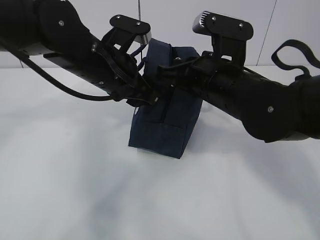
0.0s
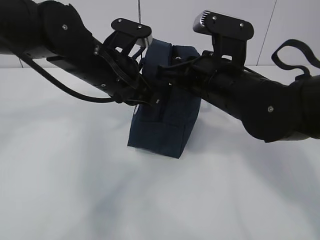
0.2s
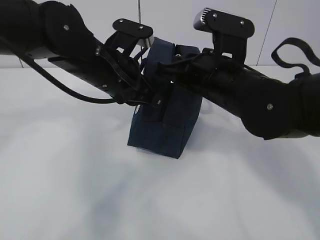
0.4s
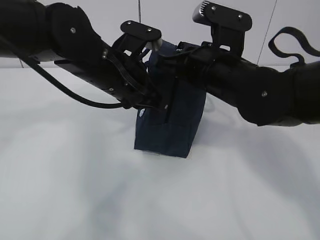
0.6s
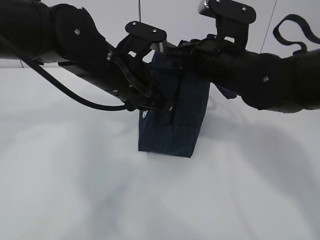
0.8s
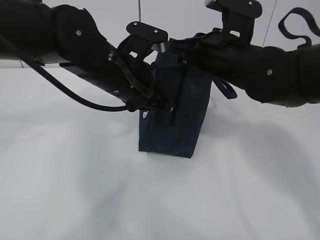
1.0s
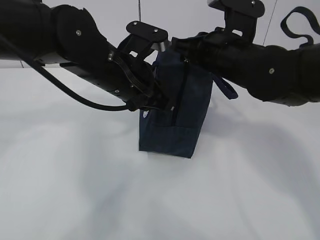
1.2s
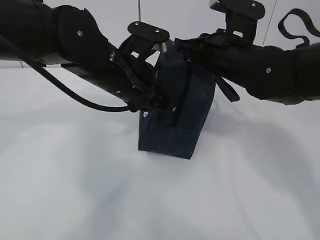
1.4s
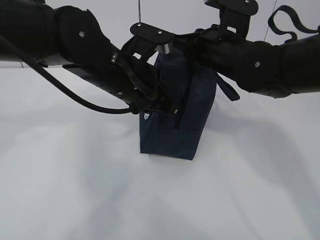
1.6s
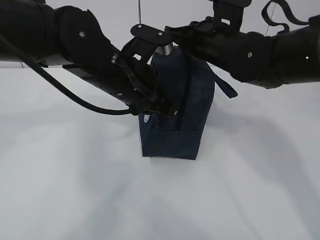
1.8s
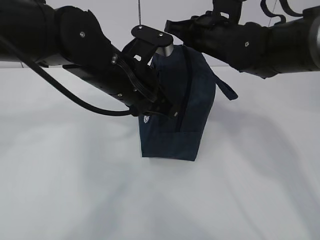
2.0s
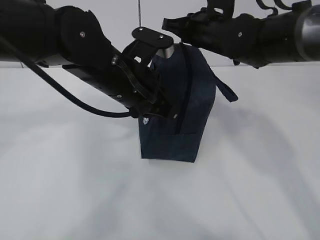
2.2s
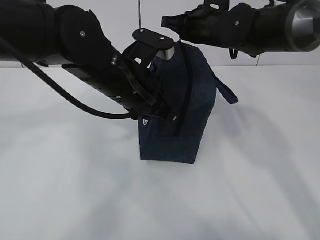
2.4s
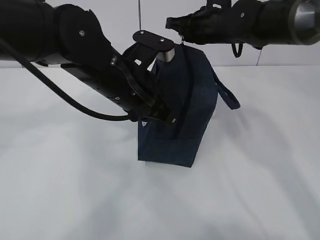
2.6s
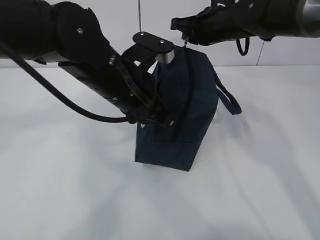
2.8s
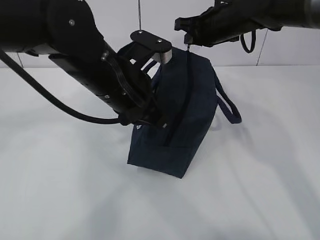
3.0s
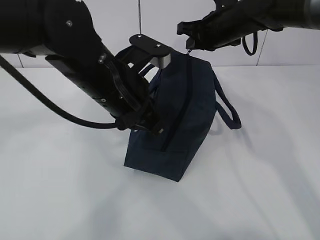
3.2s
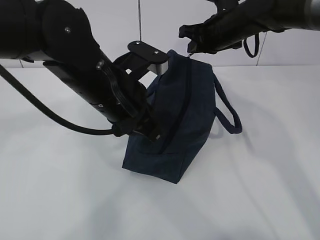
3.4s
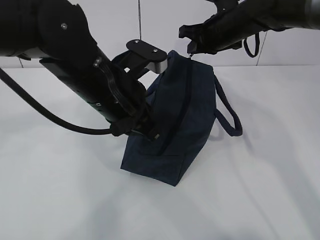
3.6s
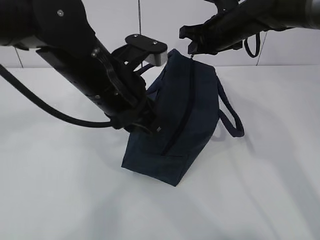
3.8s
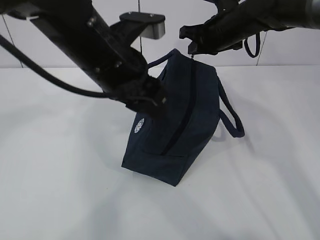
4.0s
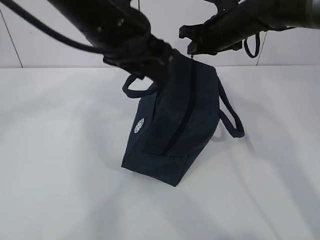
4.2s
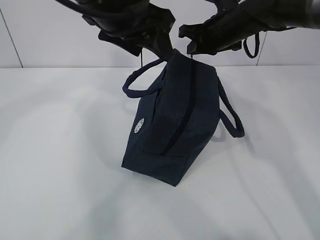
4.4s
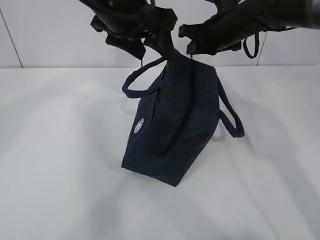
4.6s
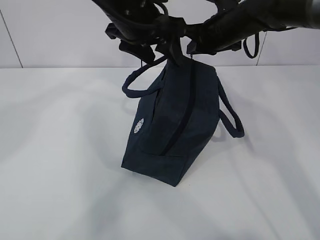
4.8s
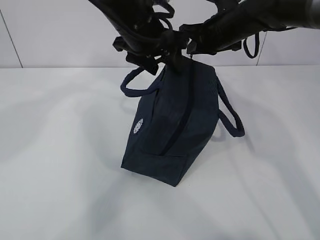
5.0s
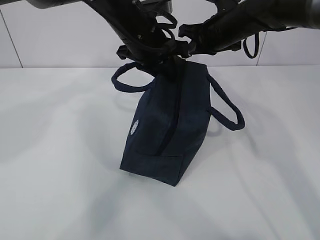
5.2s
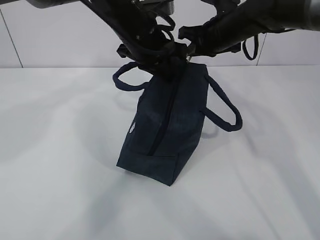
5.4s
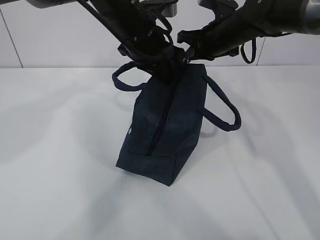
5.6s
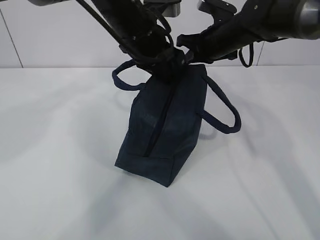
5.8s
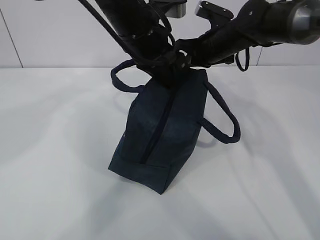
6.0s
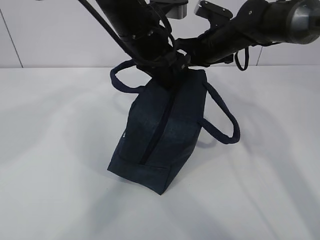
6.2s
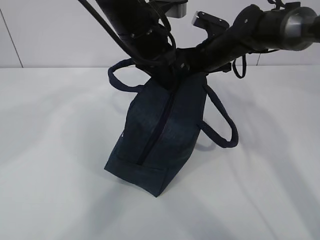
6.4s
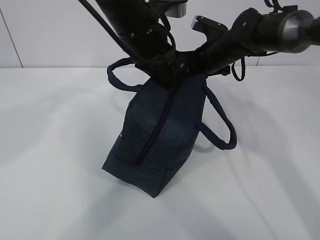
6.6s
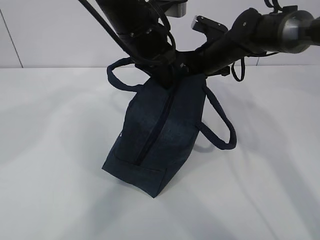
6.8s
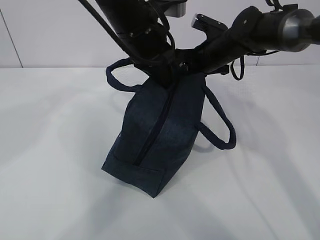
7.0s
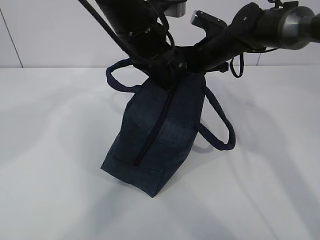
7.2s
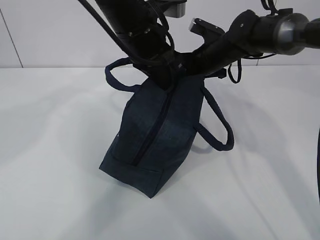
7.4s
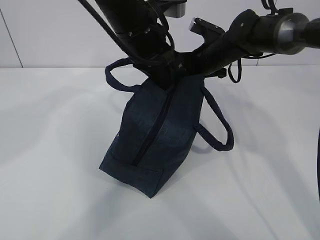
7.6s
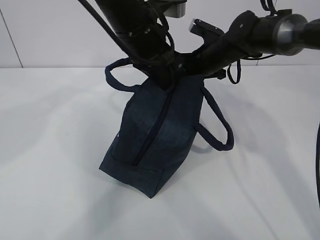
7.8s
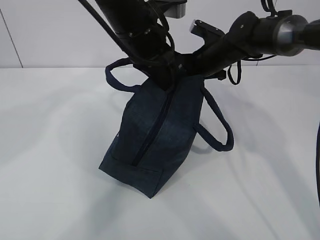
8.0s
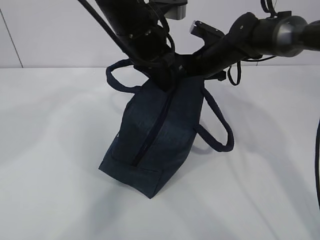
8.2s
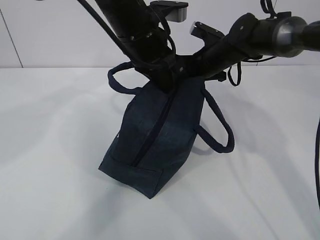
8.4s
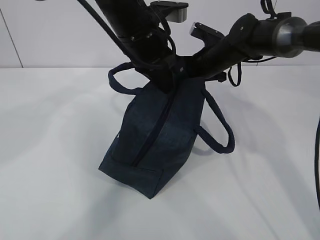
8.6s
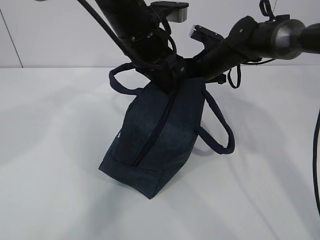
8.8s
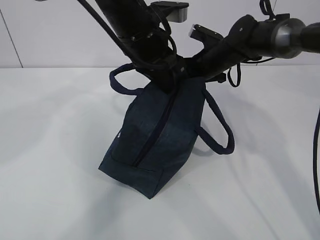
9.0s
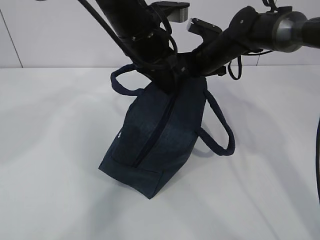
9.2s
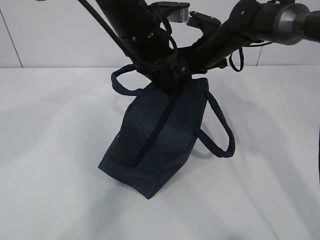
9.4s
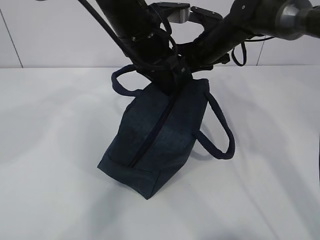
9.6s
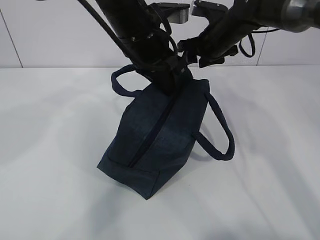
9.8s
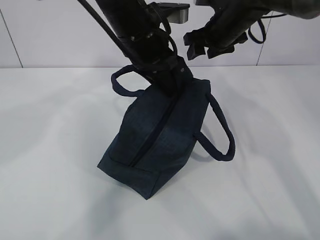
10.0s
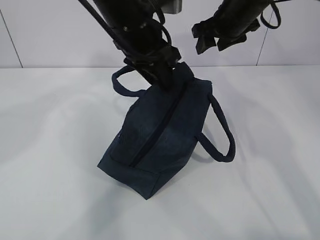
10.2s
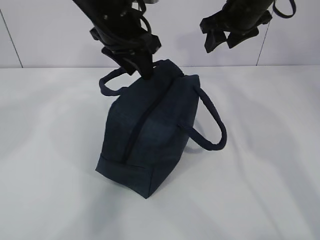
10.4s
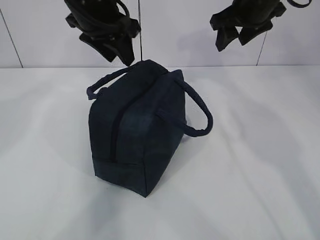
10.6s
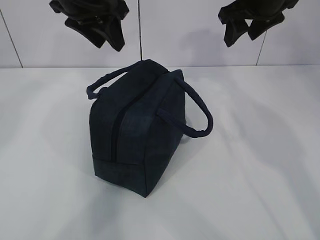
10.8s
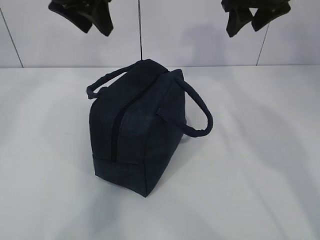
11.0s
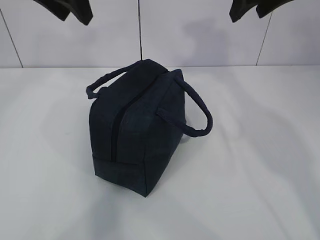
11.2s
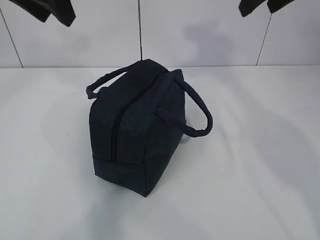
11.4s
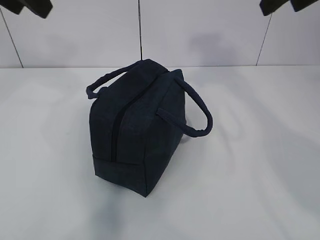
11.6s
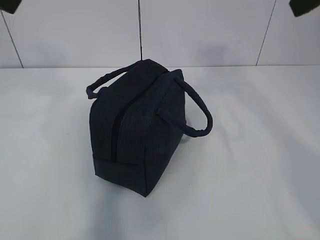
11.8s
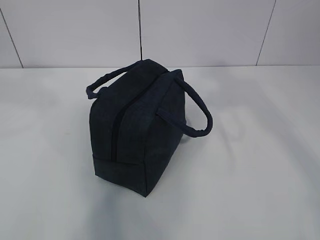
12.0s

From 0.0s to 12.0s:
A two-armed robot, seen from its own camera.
From 0.0s to 1.6s: The right gripper moves forward, some 5 cm, while the left gripper closes its fingers.
From 1.6s to 3.0s: The right gripper is displaced forward by about 10 cm.
From 3.0s to 4.4s: The left gripper is displaced upward by approximately 10 cm, and opens up.
From 4.4s to 6.0s: The left gripper travels downward and forward by approximately 10 cm, and closes.
From 6.0s to 9.0s: The grippers make only small movements.
From 9.0s to 10.4s: The left gripper opens. Meanwhile the right gripper heads upward, covering approximately 15 cm, and opens.
From 10.4s to 12.0s: The right gripper heads backward and upward, covering roughly 30 cm; the left gripper moves backward, to the left and upward, approximately 25 cm.

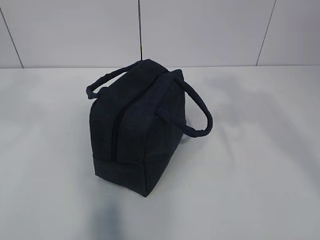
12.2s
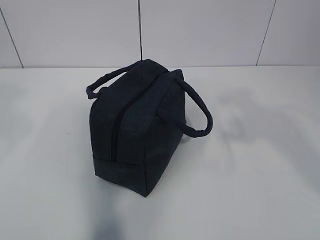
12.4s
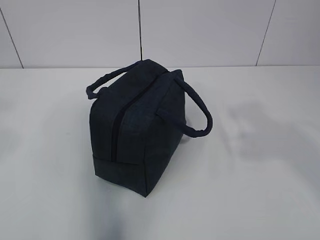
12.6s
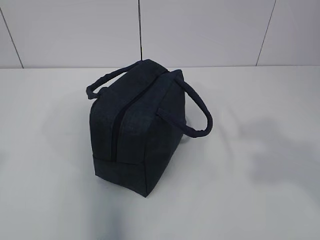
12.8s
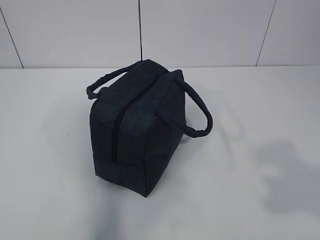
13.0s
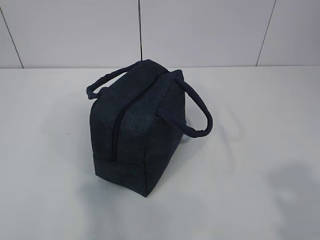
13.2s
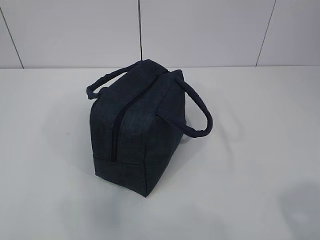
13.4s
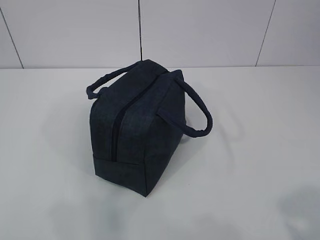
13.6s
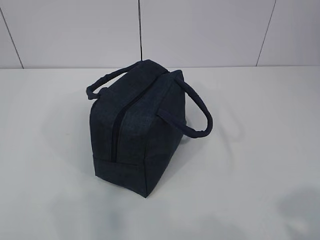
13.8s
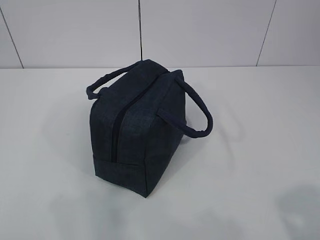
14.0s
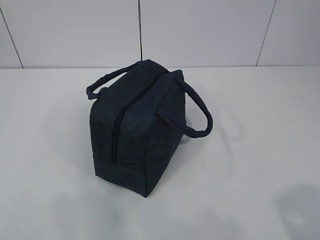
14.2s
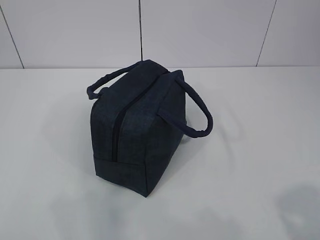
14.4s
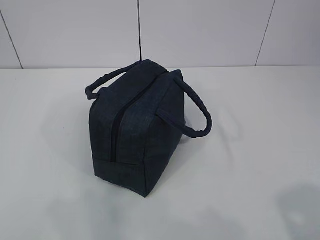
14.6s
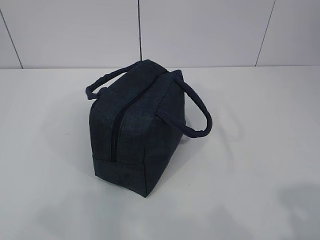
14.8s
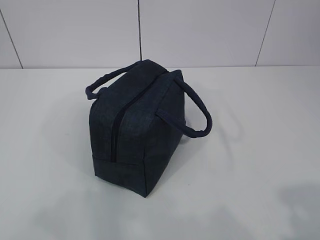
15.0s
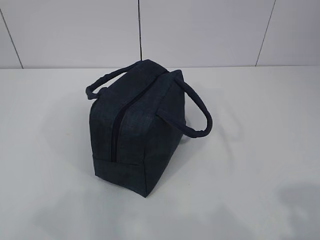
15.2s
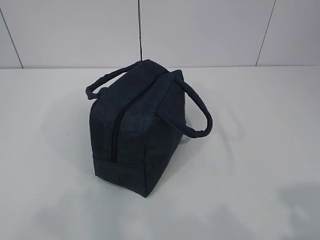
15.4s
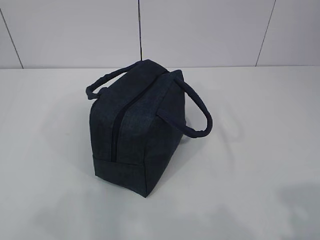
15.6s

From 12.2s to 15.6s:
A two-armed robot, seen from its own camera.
From 12.2s to 13.8s: The left gripper travels backward, downward and to the left by some 25 cm, while the right gripper travels backward and downward by some 25 cm.

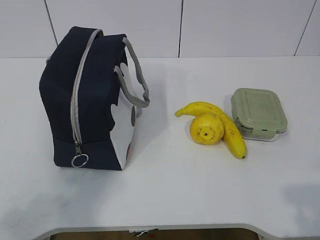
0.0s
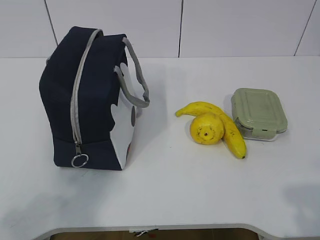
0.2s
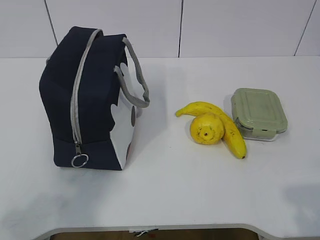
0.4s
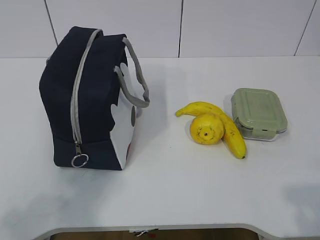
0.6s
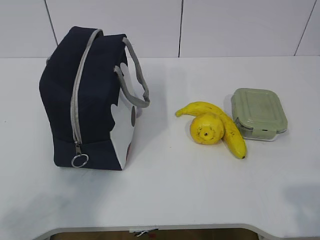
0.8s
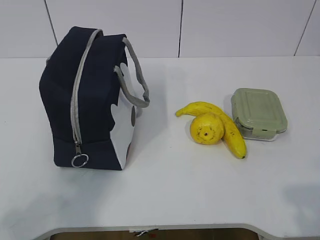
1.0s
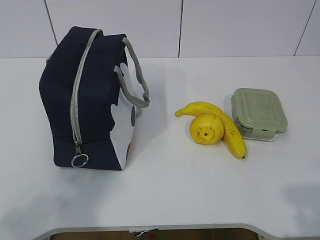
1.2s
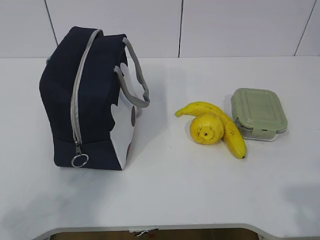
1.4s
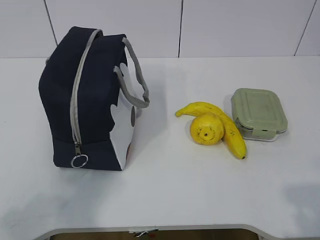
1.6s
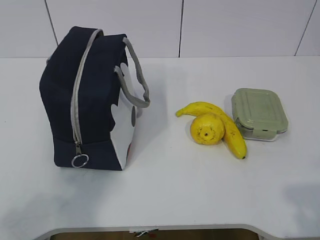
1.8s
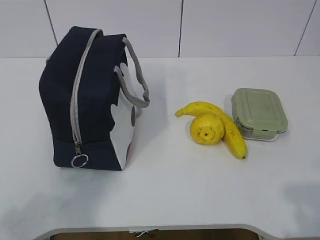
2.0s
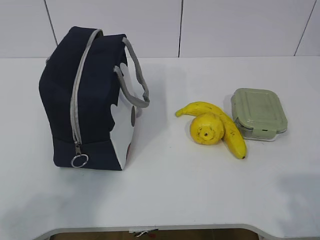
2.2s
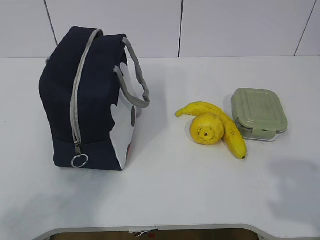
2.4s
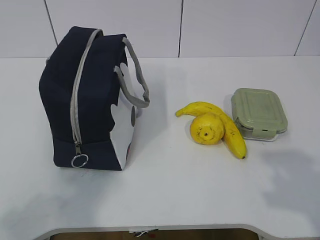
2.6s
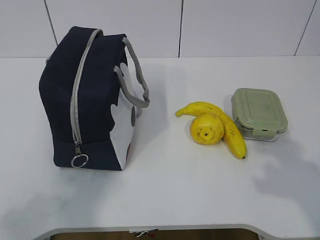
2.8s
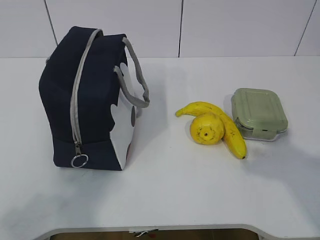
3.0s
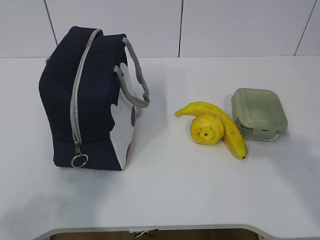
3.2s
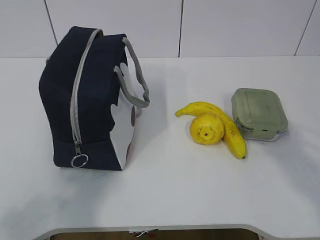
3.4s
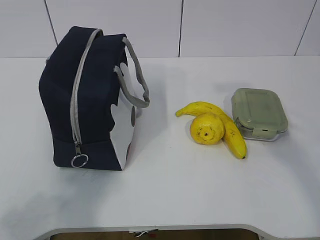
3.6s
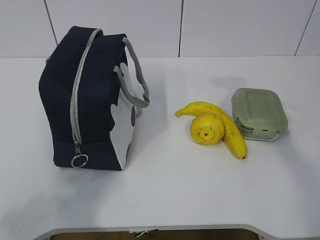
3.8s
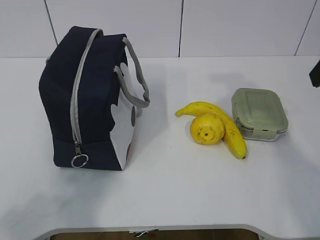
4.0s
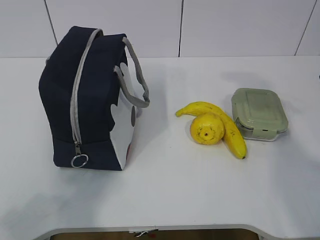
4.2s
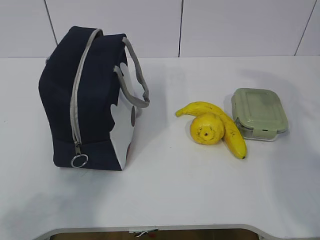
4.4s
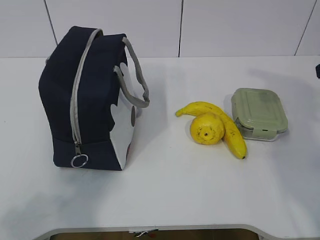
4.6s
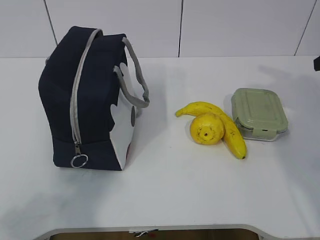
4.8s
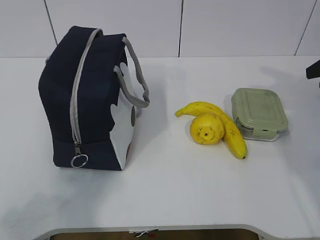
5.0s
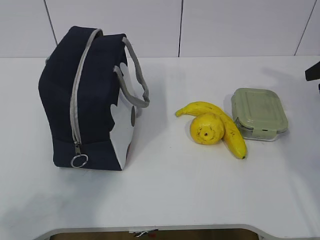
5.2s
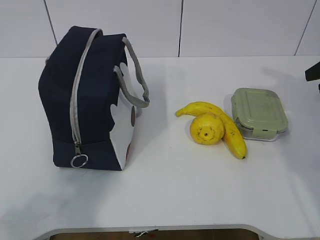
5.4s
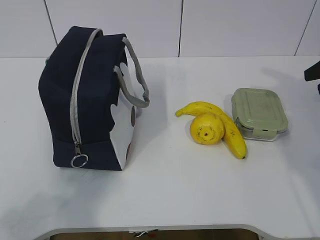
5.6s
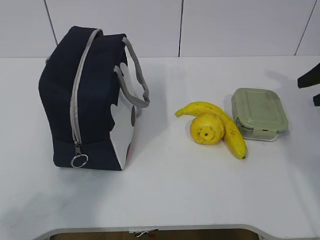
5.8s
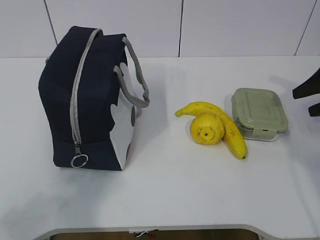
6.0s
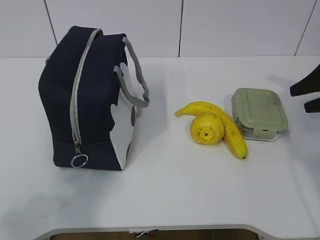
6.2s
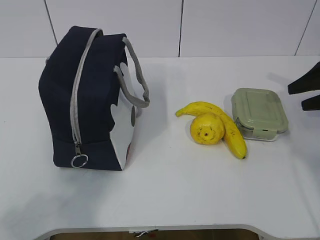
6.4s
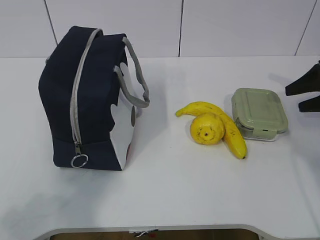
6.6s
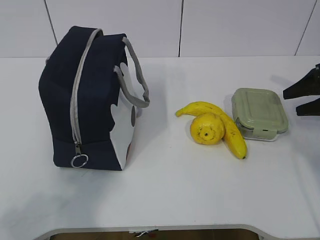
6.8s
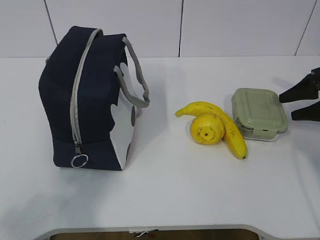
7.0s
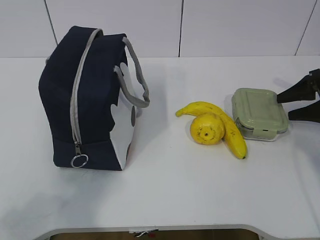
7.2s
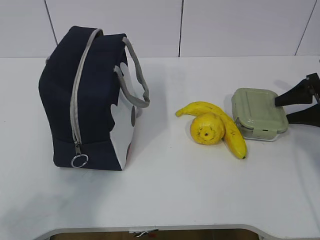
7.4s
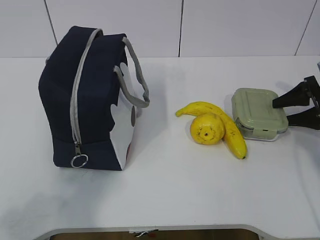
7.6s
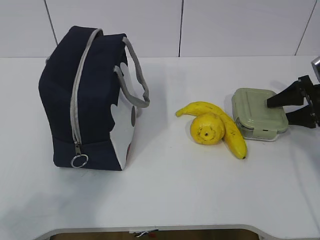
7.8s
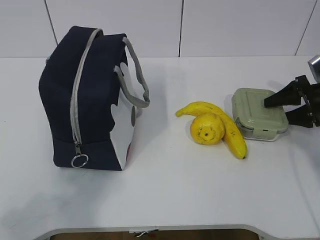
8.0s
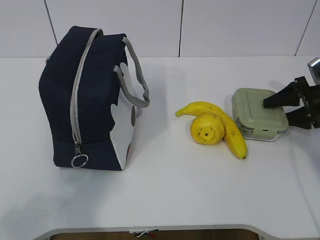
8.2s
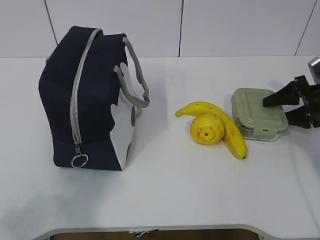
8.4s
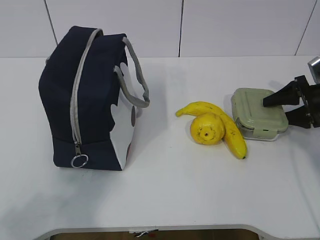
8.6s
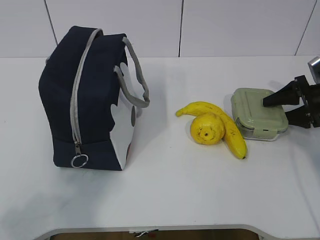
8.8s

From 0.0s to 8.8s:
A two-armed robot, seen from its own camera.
Step, from 0.0s to 8.4s: Grab the lunch box with your right hand.
From 1.4s to 3.0s: The right gripper goes approximately 10 cm forward.
From 4.4s to 5.8s: The right gripper is displaced downward, forward and to the right by approximately 15 cm.
From 5.8s to 7.4s: The right gripper is displaced downward by some 10 cm.
From 7.4s to 8.8s: The grippers make only small movements.
